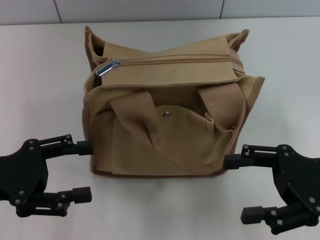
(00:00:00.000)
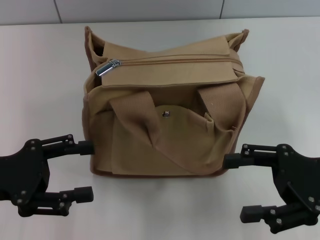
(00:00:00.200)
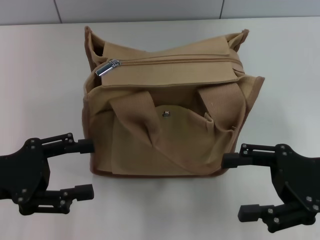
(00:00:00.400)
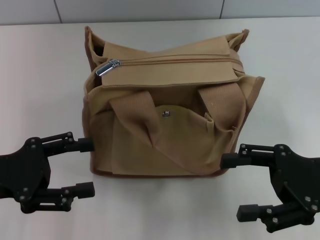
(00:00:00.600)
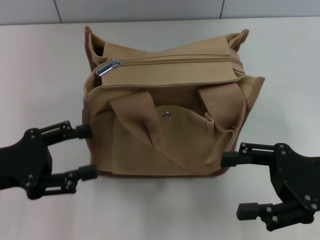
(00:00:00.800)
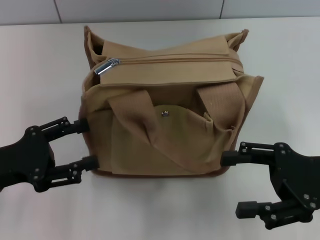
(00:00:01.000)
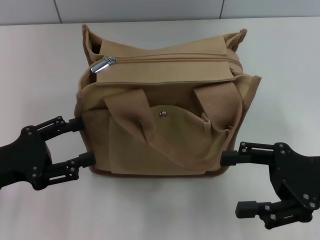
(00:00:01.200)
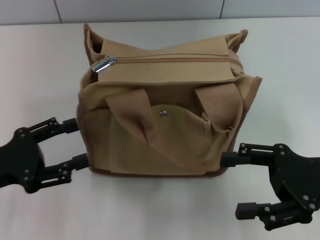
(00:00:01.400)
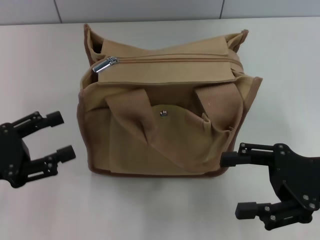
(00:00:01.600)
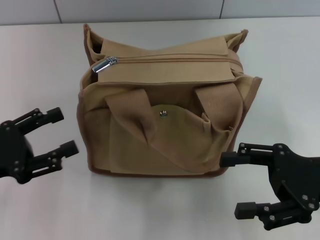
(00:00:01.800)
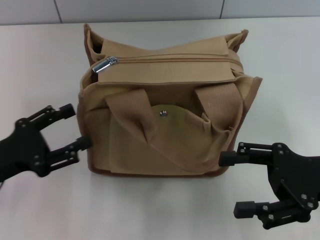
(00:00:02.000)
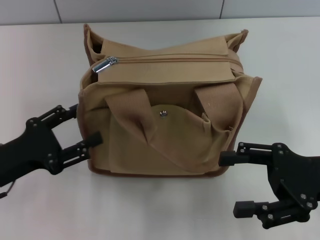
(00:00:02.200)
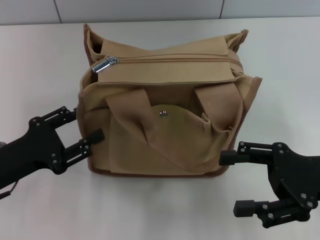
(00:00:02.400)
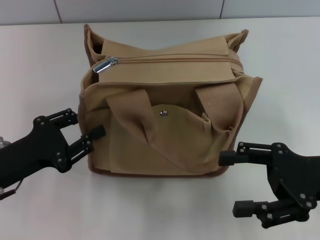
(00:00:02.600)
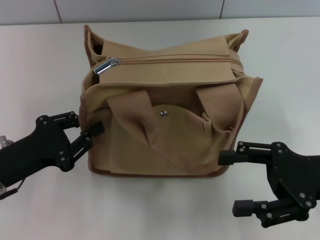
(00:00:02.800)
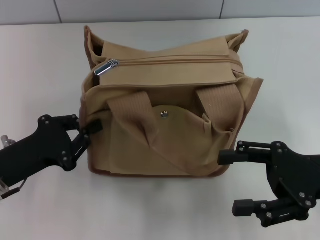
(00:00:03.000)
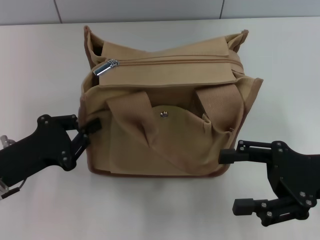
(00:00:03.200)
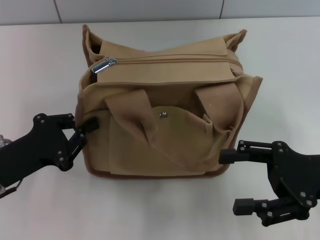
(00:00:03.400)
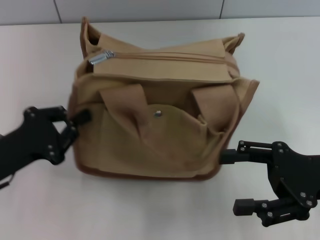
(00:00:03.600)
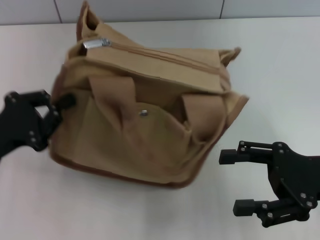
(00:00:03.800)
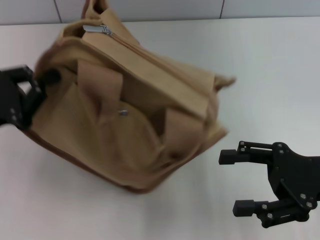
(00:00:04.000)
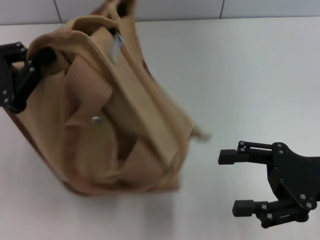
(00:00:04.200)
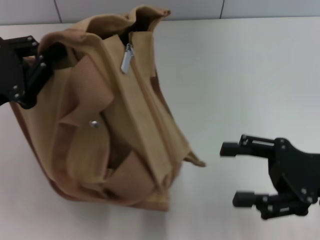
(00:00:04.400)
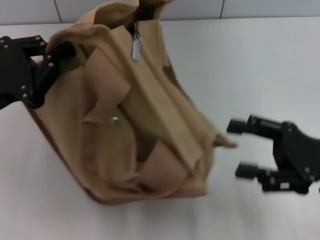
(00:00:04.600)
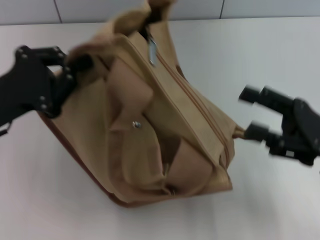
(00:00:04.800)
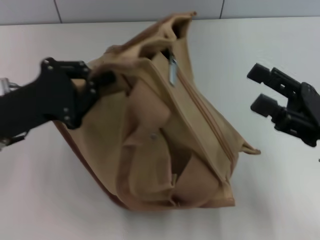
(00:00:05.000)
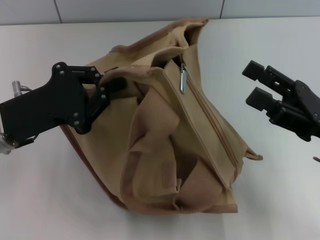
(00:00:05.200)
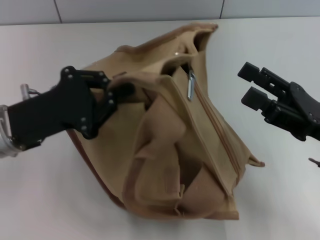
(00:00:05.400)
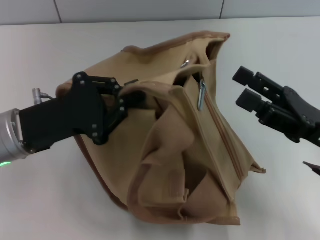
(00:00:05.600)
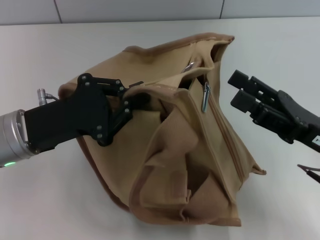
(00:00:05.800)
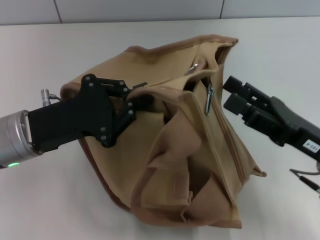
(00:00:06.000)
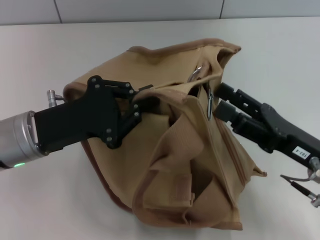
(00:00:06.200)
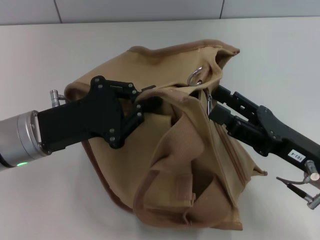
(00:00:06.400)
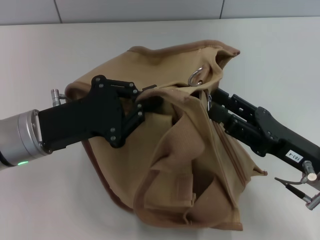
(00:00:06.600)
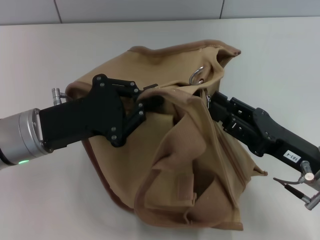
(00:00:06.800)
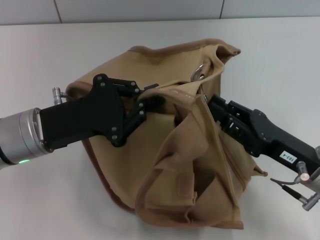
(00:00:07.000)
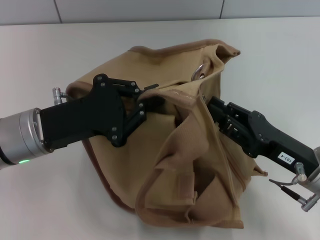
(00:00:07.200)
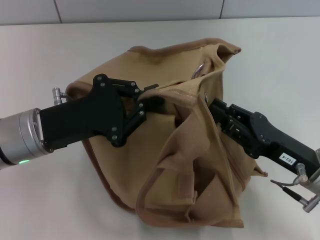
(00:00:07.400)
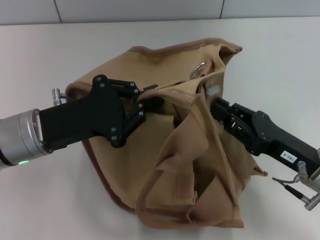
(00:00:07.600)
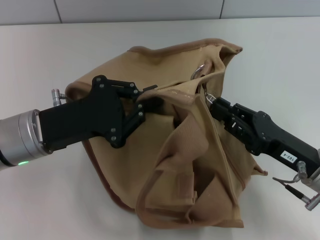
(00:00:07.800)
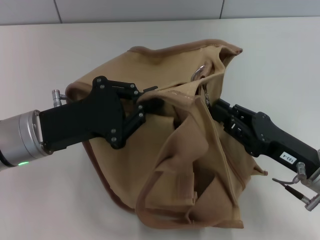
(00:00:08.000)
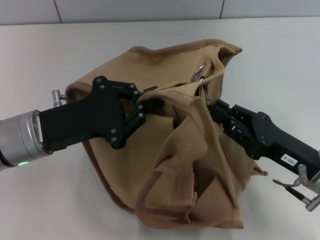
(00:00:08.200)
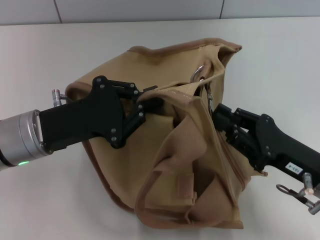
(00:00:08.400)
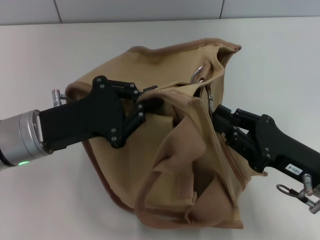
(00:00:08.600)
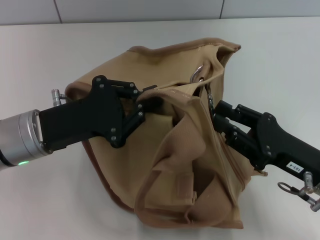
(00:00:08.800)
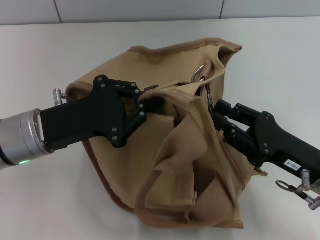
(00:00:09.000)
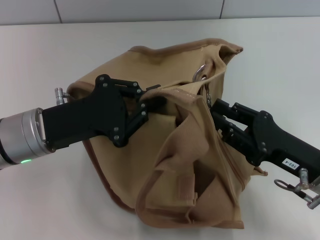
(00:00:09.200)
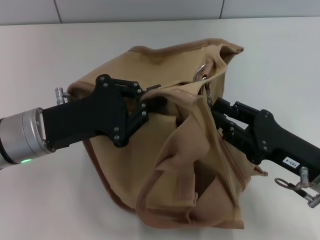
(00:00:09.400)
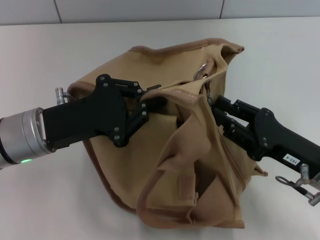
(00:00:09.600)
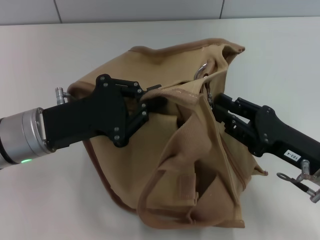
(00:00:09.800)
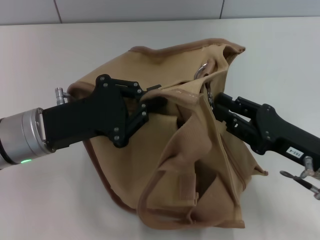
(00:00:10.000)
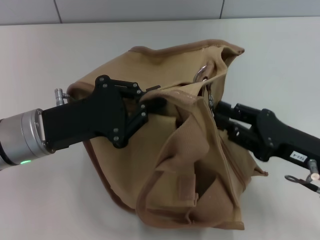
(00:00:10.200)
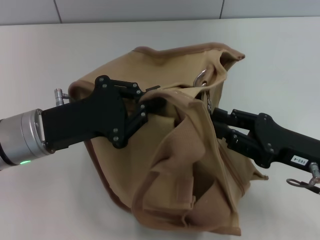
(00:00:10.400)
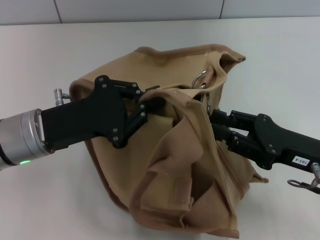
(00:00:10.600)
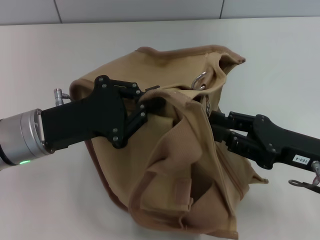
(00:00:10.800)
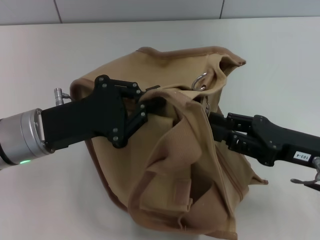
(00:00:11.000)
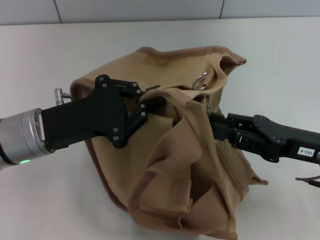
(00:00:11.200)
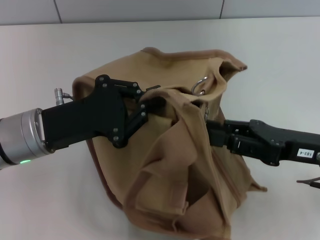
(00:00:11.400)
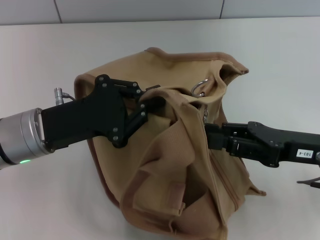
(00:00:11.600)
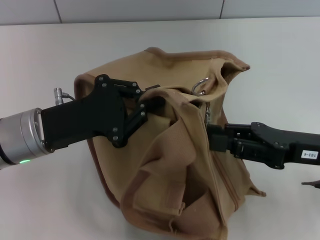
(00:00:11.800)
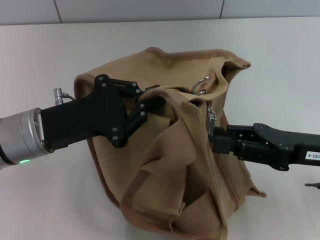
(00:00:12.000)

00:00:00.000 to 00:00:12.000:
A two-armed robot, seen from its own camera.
00:00:00.000 to 00:00:01.600: The grippers stay close to where they were, moving slightly.
00:00:01.600 to 00:00:03.000: The left gripper moves some 5 cm, and closes up.
00:00:03.000 to 00:00:04.400: The left gripper is displaced upward by some 10 cm.
00:00:04.400 to 00:00:06.000: The left gripper is displaced to the right by roughly 5 cm.
00:00:06.000 to 00:00:07.600: The right gripper closes up.
00:00:07.600 to 00:00:10.400: The grippers move only a little.

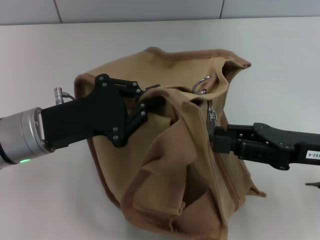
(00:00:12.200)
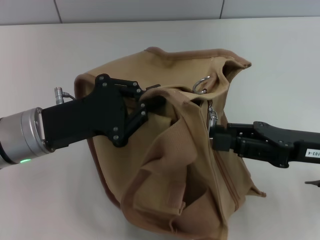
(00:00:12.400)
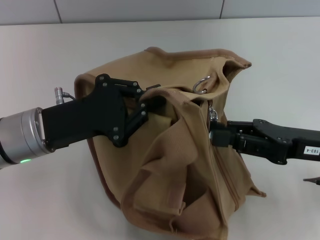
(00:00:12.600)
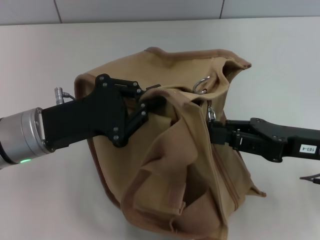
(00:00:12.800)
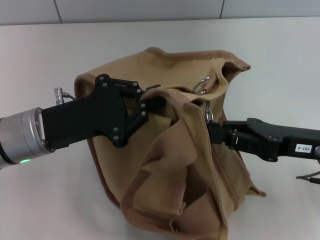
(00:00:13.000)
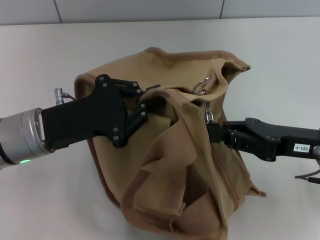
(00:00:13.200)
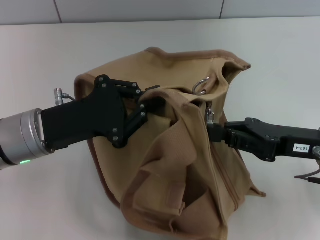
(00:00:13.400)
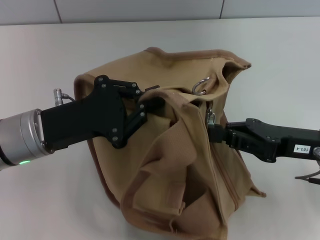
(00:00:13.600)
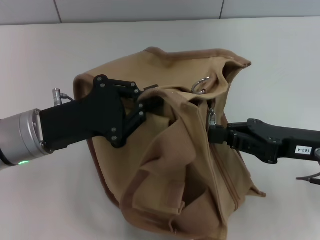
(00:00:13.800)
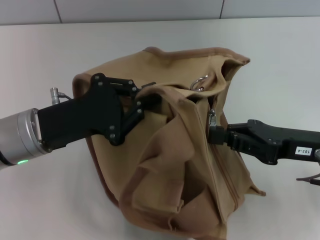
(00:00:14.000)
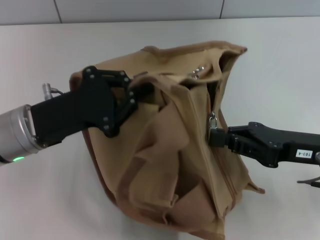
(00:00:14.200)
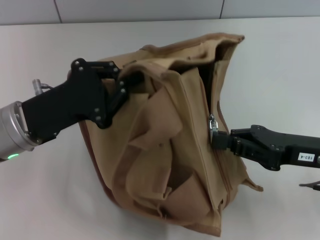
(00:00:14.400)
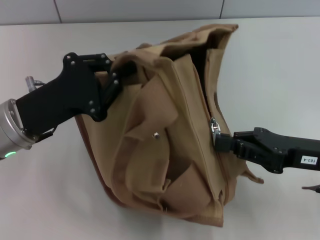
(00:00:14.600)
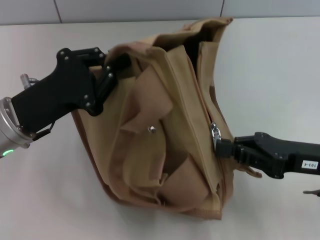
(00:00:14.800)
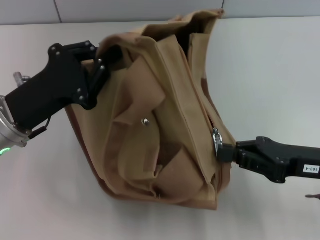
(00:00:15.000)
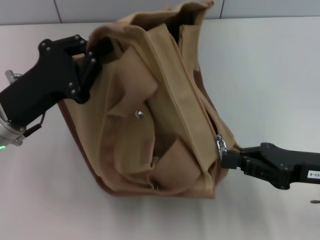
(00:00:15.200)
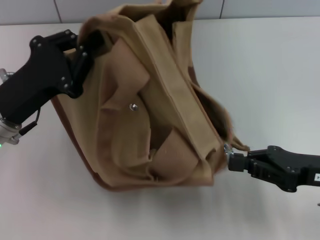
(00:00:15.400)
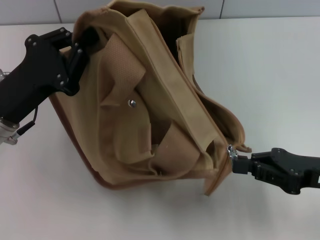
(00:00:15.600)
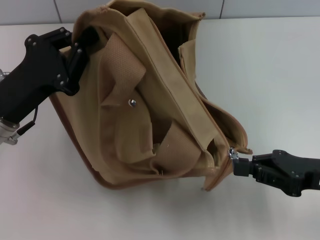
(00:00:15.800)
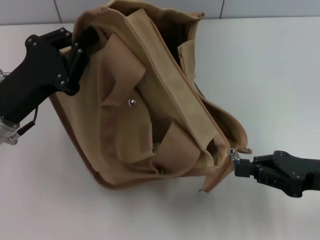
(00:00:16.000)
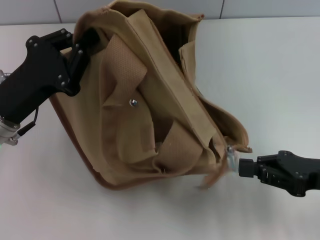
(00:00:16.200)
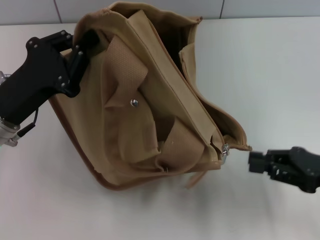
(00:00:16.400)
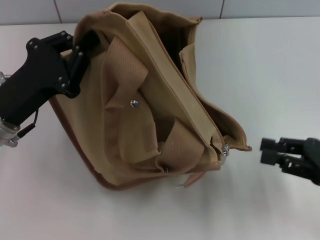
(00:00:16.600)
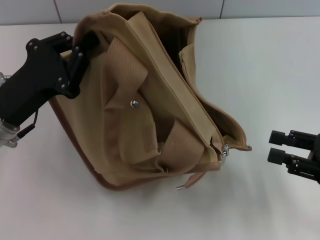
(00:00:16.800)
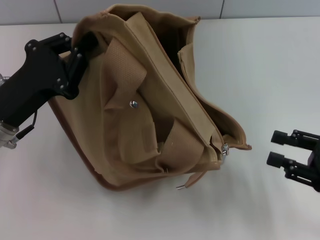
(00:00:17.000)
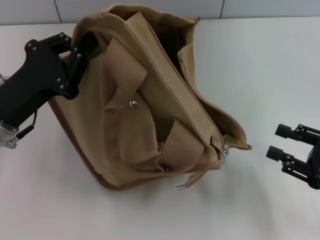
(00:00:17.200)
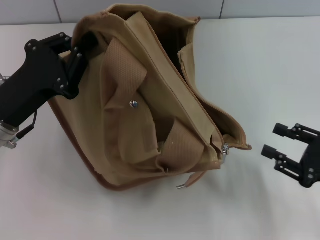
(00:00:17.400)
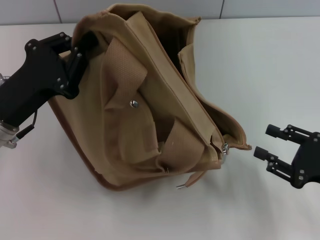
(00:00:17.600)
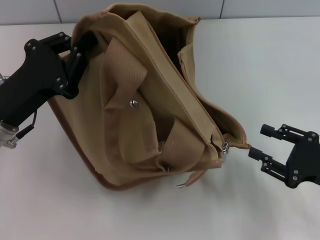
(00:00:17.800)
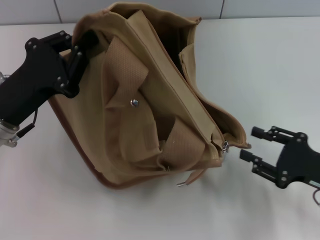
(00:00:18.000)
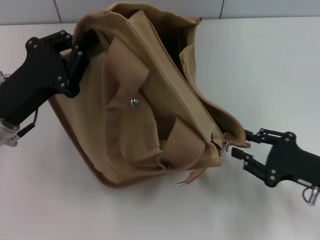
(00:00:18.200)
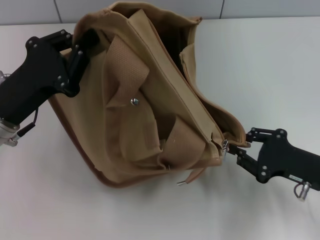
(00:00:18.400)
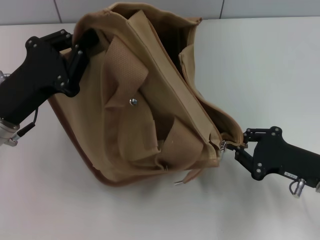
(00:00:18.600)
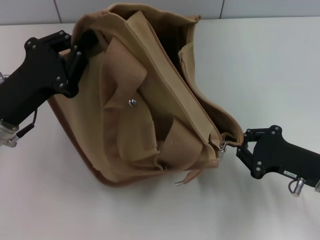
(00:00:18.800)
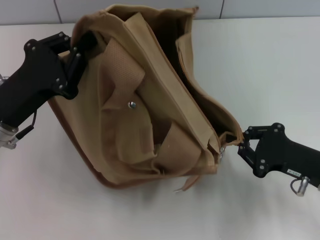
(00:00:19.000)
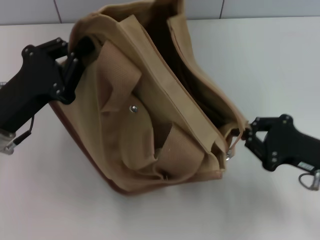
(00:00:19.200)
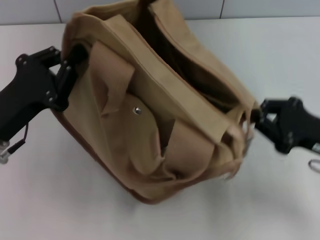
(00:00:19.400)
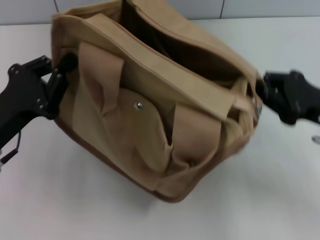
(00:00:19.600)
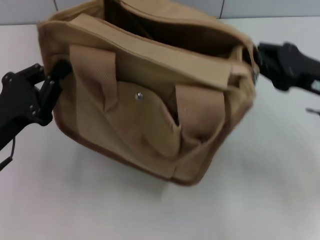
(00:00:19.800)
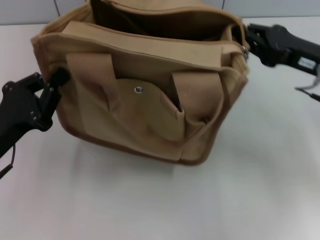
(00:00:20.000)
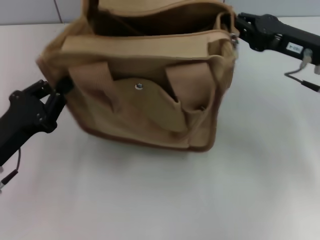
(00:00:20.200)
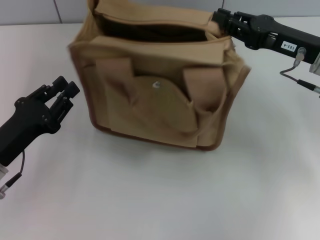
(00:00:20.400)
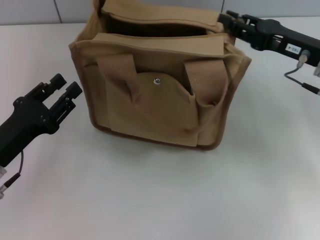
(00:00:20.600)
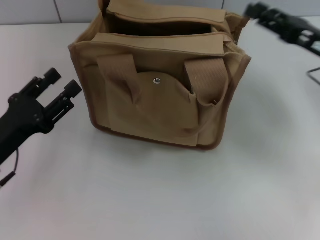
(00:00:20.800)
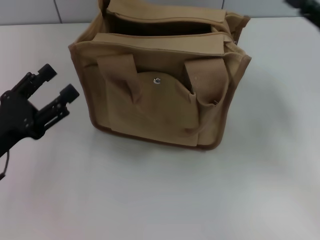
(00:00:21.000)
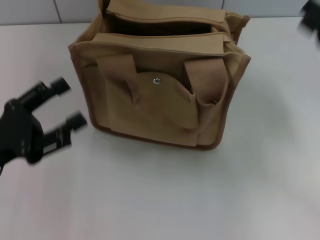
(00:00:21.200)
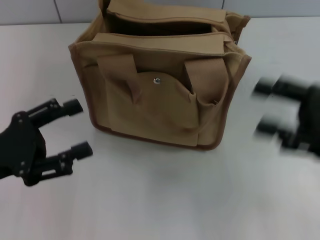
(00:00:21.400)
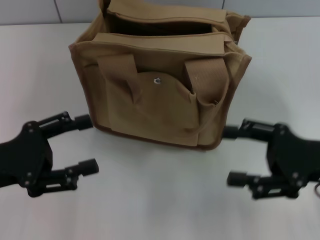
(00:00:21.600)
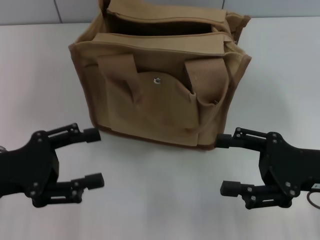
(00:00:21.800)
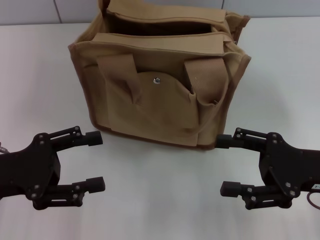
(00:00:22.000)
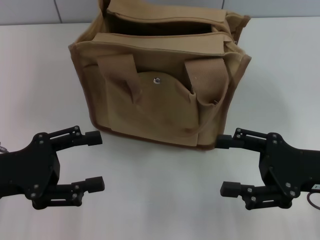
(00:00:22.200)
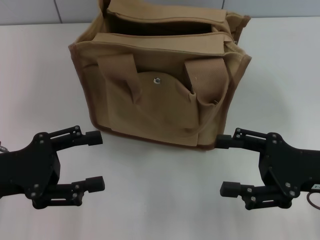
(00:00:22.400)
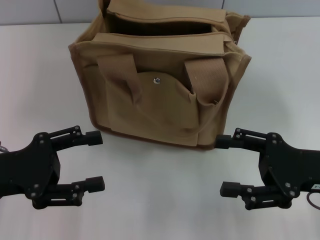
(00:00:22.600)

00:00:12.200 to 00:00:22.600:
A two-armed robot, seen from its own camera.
Step, 00:00:12.200 to 00:00:16.400: Pull open the zipper with your right hand.
Step, 00:00:16.600 to 00:00:20.600: Grab the bag with your left hand.
00:00:12.200 to 00:00:13.600: The right gripper closes its fingers.
00:00:15.200 to 00:00:16.600: The right gripper travels to the right by some 5 cm.
00:00:16.600 to 00:00:18.200: The right gripper shifts roughly 5 cm downward, and opens up.
00:00:18.200 to 00:00:19.600: The right gripper heads upward and forward, covering roughly 10 cm, and closes its fingers.
00:00:19.600 to 00:00:21.200: The right gripper reaches about 10 cm forward, then returns, and opens. Meanwhile the left gripper opens its fingers.
00:00:21.200 to 00:00:22.600: The right gripper heads to the left, covering roughly 5 cm.
